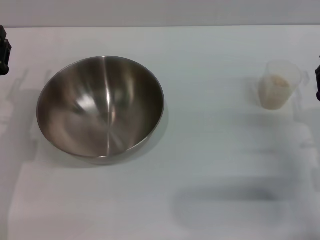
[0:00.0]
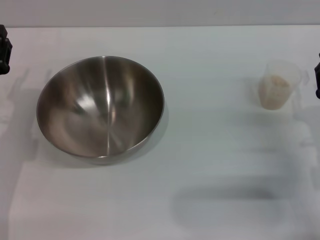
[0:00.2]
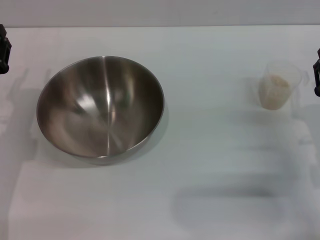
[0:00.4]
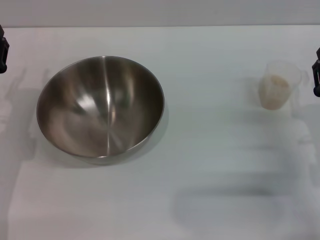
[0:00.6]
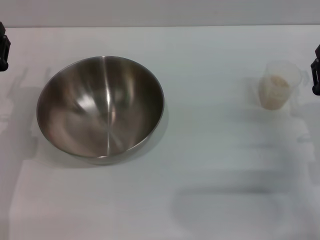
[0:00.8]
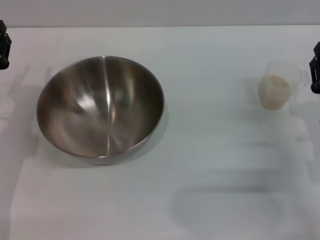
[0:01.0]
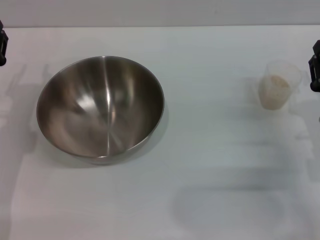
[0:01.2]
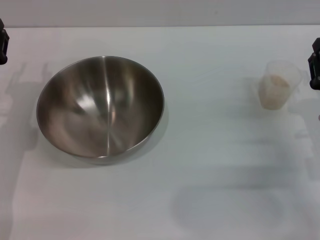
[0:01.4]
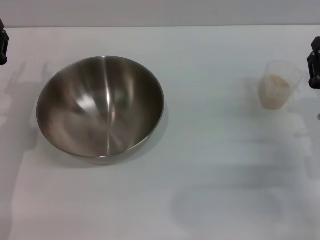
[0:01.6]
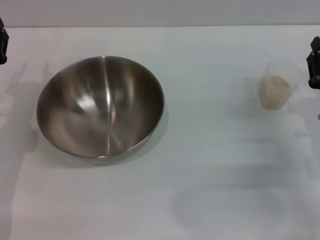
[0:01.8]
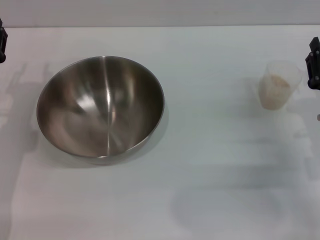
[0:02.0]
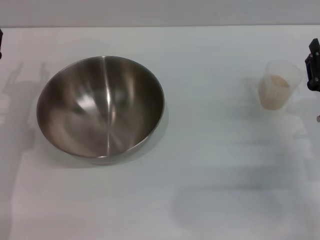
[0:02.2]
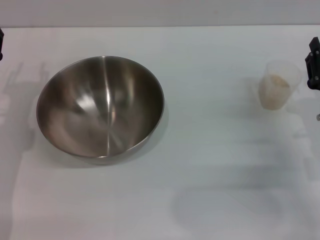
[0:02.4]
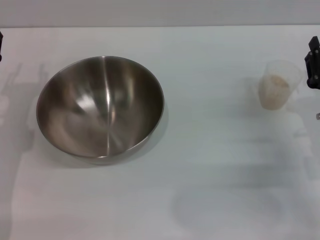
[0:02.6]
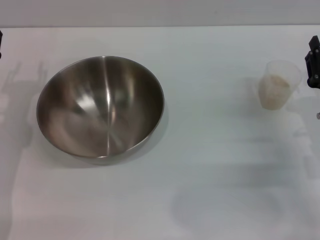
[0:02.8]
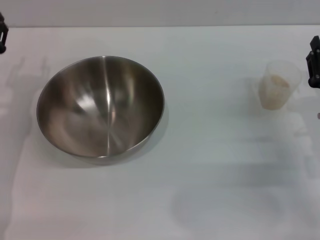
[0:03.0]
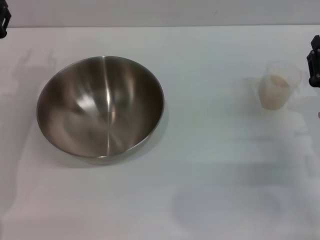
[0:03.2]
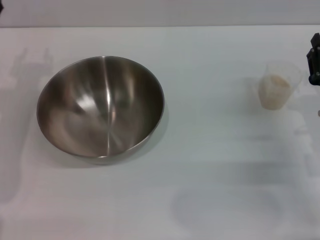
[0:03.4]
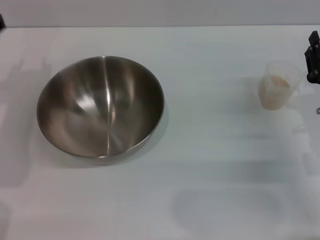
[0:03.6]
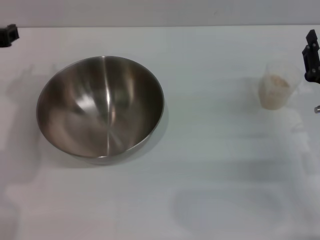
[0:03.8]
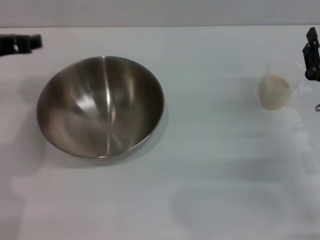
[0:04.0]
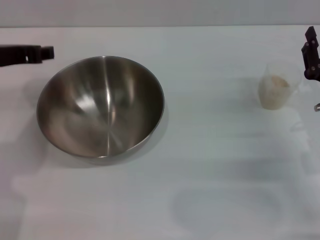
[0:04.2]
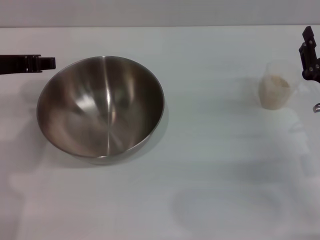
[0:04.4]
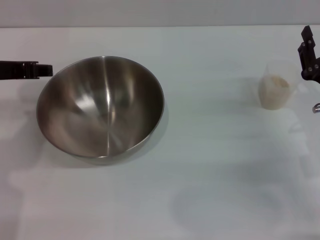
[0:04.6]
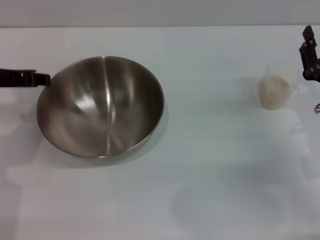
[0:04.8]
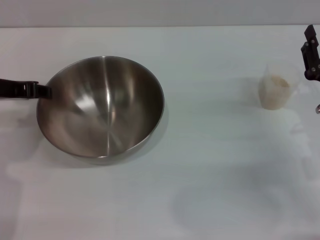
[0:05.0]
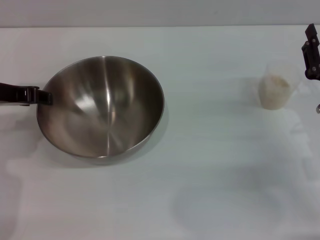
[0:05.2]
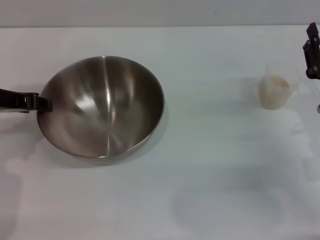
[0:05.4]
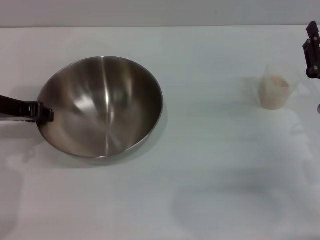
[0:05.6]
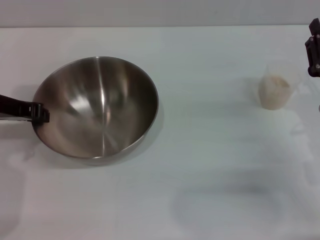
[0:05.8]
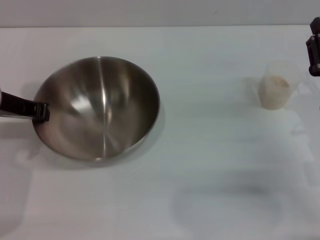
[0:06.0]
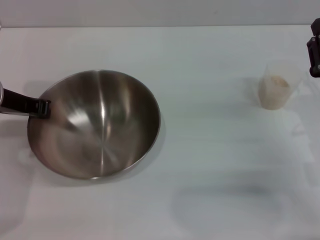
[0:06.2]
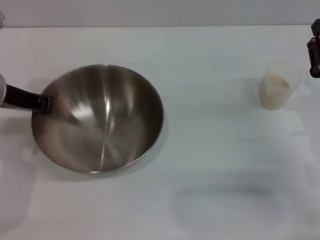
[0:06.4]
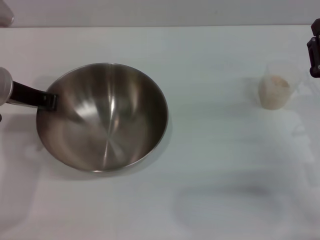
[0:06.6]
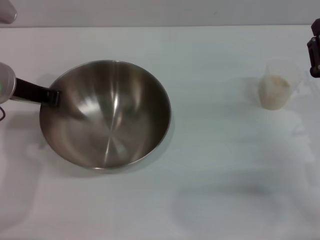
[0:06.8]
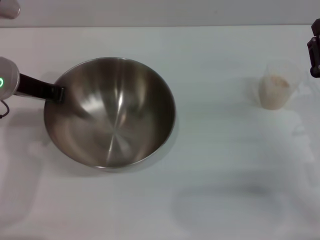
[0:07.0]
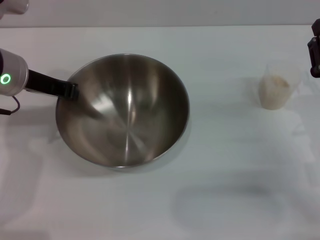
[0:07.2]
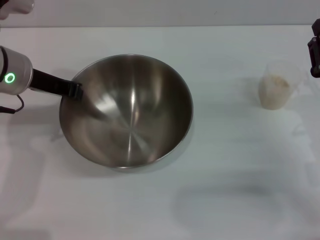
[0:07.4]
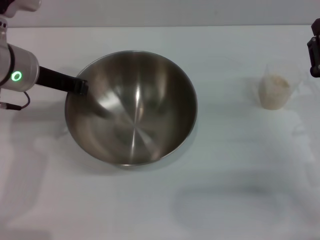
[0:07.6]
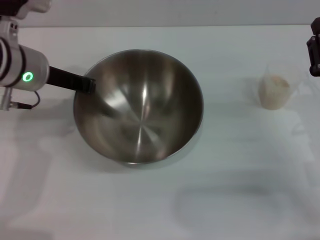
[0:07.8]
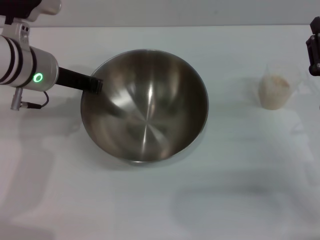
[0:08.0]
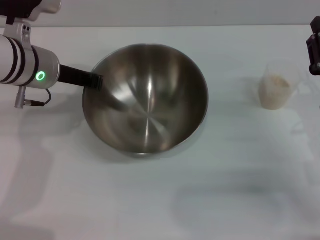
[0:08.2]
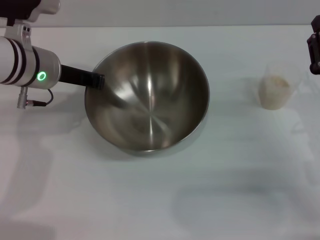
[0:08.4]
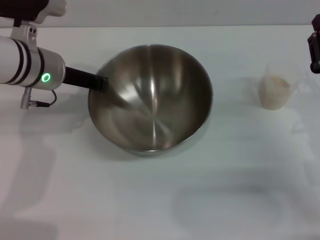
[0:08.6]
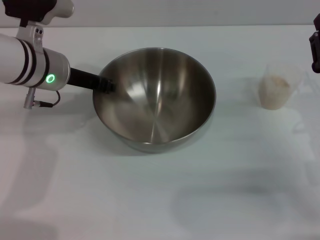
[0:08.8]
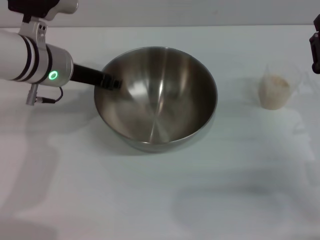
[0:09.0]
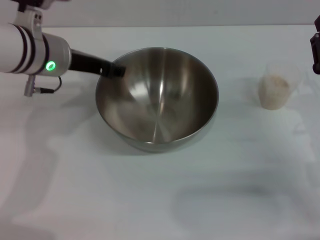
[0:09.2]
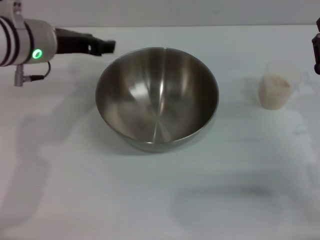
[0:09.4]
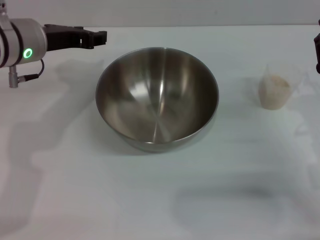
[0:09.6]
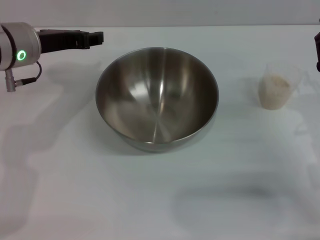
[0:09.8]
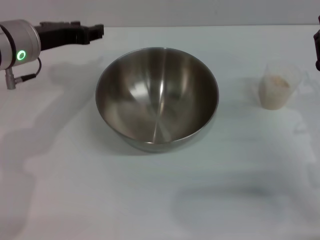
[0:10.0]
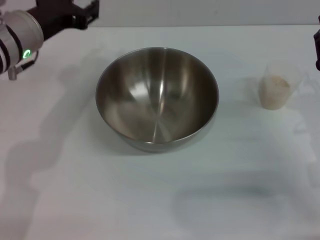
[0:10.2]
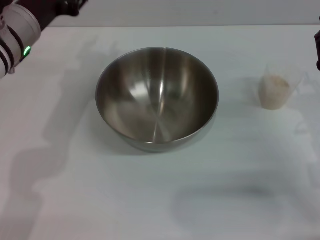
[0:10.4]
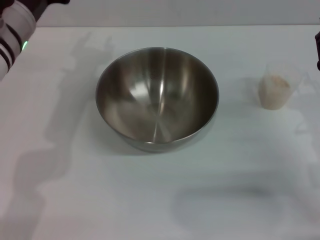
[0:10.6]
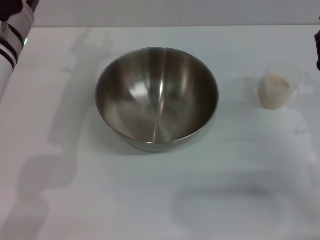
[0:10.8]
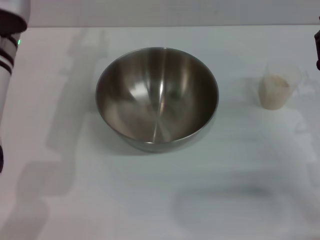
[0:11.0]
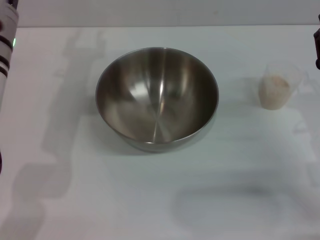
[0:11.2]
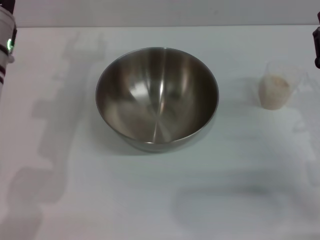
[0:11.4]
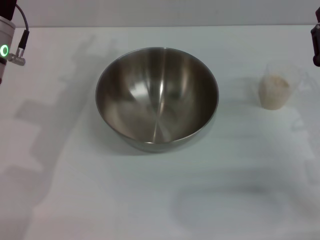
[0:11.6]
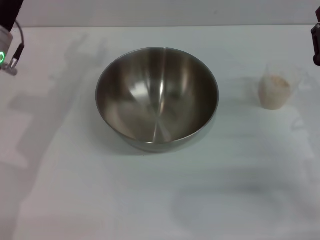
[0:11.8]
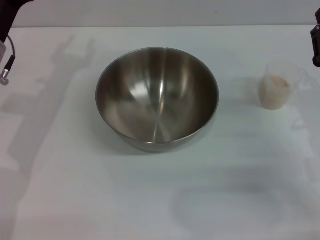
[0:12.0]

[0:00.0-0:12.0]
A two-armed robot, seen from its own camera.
Task of the whole recording: Place the bowl in the middle of the table with one hand and pour the rice from the grain cup into it with the other hand.
Step, 0:00.0 to 0:07.2: Pick up the bowl with the left gripper.
Step, 0:07.6 to 0:09.8: Place the bowl in the center of view with the left gripper.
0:00.0 to 0:01.6: The grippers move only a little.
0:03.0 to 0:04.4: The left gripper moves upward, approximately 15 cm.
0:04.4 to 0:06.0: The left gripper closes its fingers.
0:06.0 to 0:07.6: The left gripper ends up approximately 5 cm from where it was.
0:09.0 to 0:10.4: The left gripper opens up.
0:10.4 to 0:12.0: The left gripper heads to the left, covering roughly 5 cm.

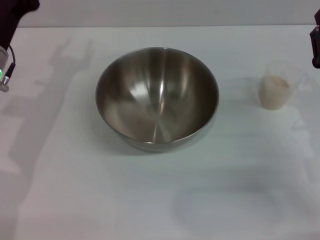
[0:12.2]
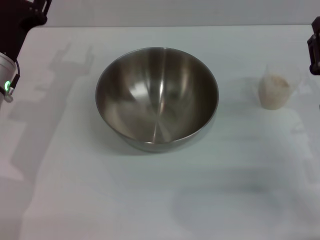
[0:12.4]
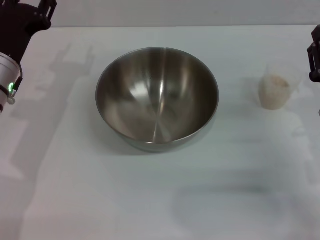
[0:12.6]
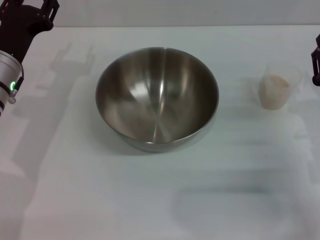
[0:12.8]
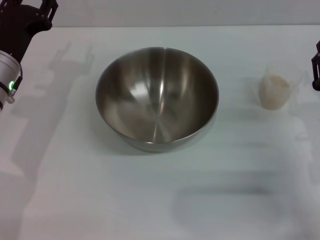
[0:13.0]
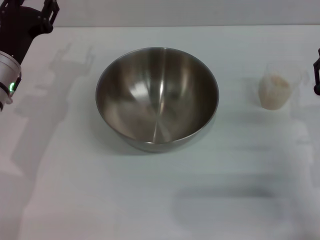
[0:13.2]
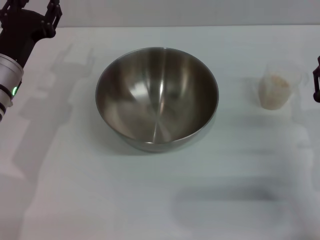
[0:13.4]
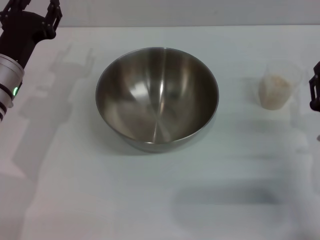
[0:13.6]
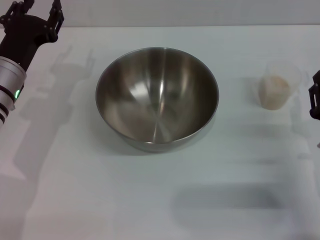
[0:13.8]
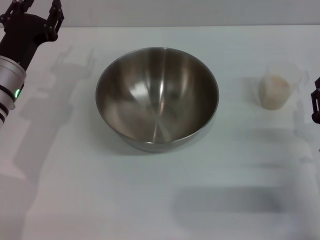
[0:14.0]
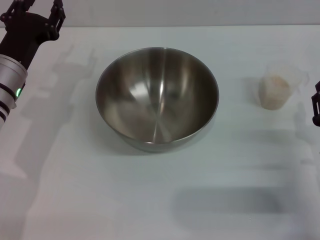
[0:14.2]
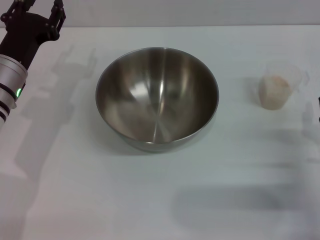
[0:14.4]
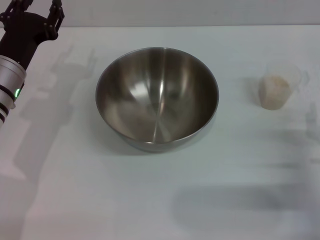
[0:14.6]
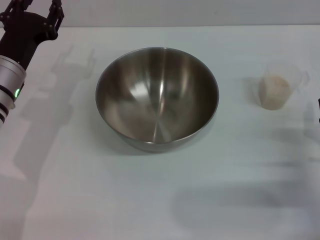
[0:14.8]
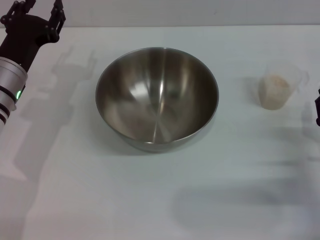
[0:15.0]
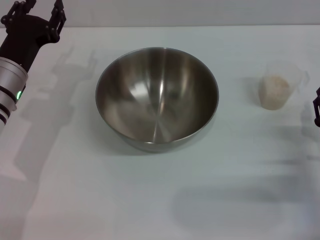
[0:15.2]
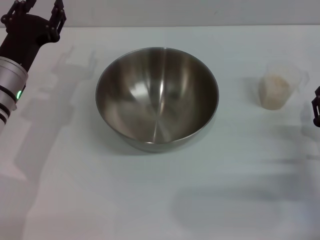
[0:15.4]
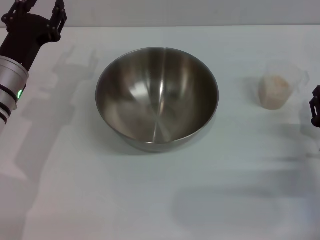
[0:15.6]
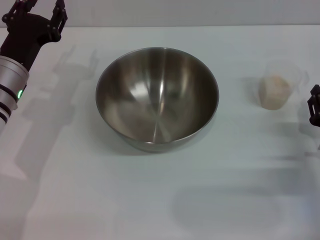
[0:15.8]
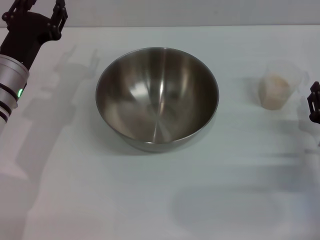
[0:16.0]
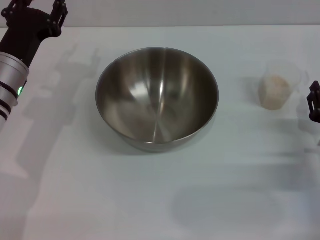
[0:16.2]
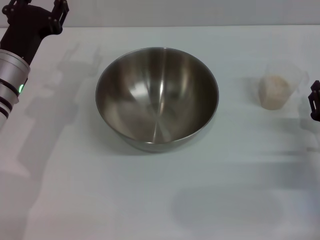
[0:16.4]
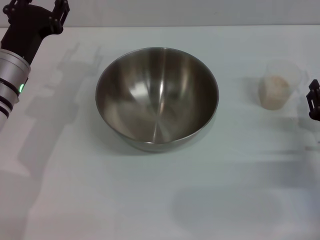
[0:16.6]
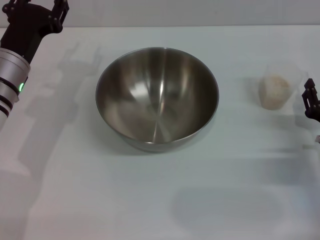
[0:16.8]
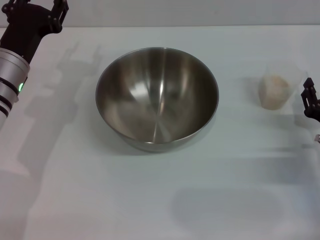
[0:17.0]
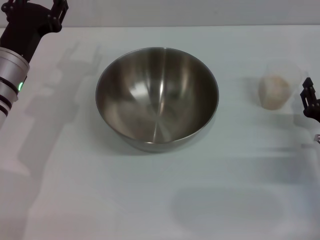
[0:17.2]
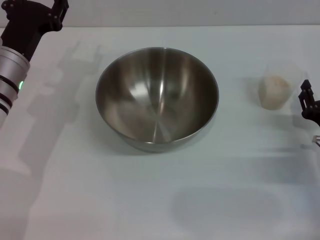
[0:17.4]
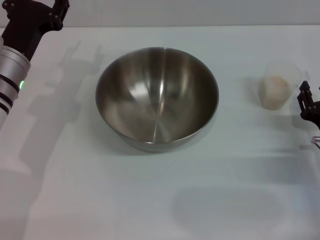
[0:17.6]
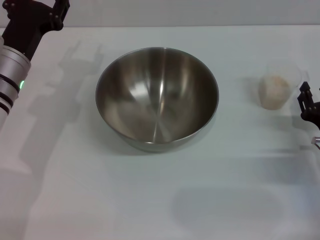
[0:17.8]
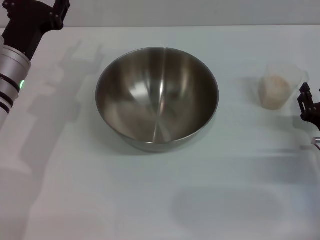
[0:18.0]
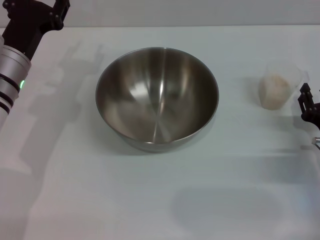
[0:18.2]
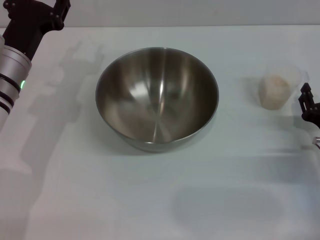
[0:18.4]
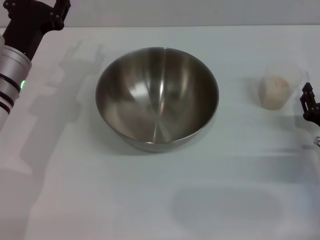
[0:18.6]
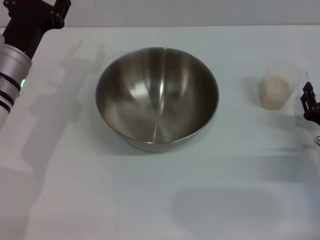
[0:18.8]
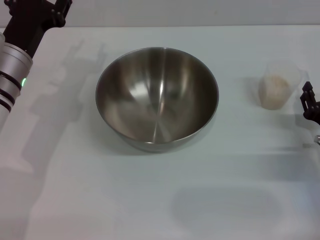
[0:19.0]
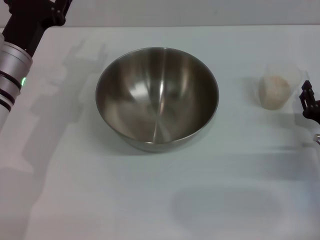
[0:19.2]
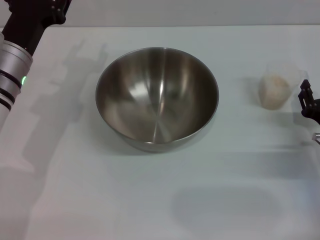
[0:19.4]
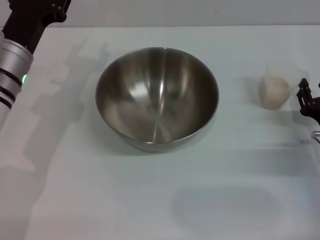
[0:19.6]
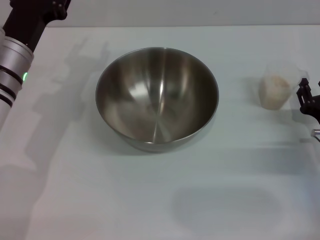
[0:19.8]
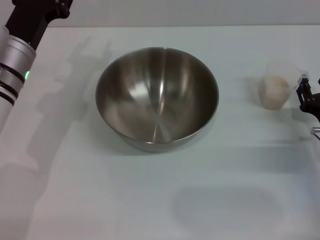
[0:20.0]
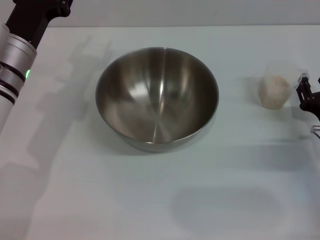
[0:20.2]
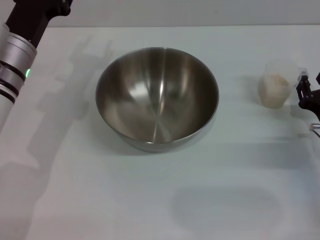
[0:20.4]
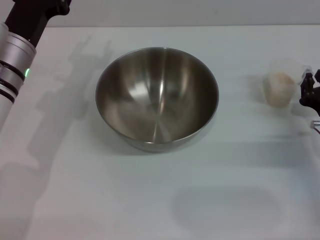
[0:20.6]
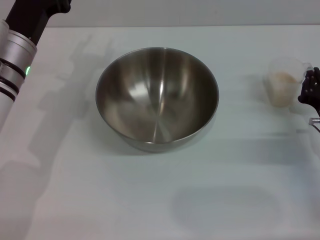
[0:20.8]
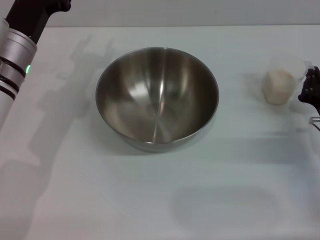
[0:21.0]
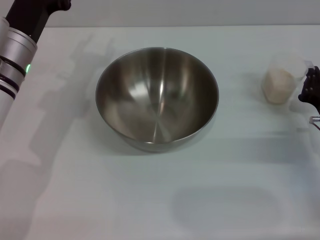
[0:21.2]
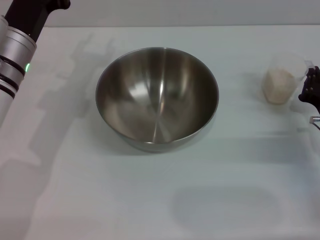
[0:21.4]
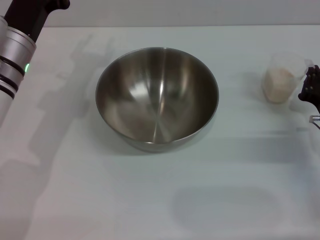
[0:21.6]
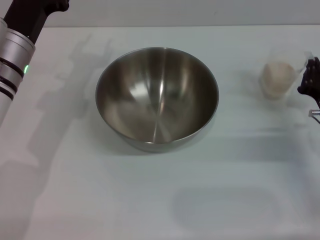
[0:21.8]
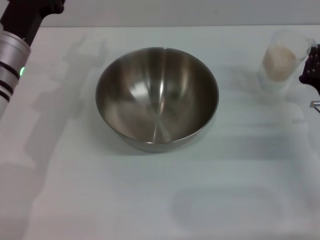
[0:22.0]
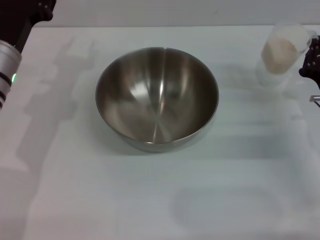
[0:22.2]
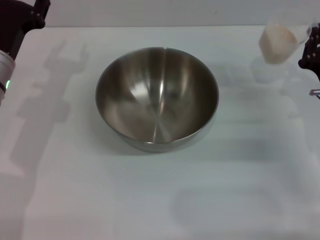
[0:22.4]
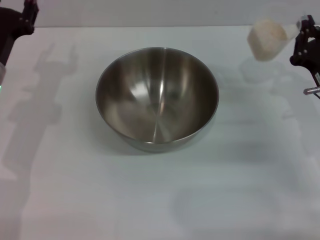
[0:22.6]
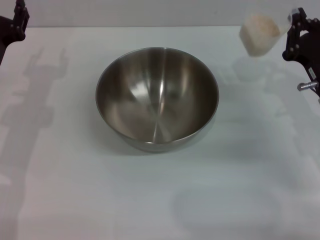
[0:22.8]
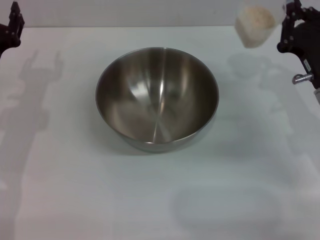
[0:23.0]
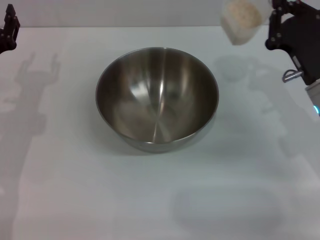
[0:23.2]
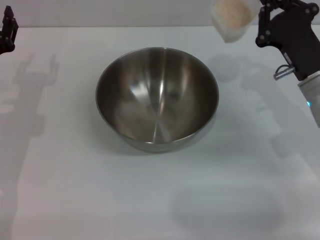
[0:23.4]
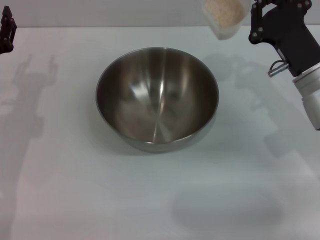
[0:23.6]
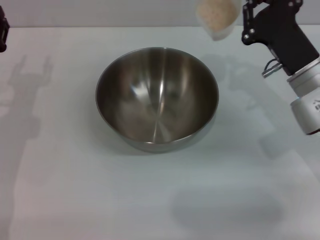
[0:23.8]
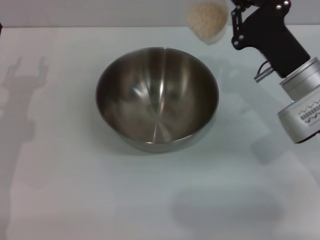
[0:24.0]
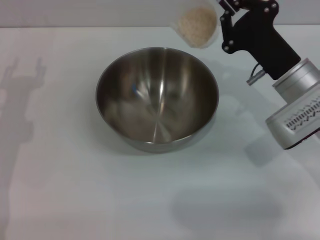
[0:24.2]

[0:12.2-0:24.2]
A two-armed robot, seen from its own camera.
Task of the whole recording: Place the bowl in the middle of the table with one hand and pour the rice from the grain cup into it with the other hand.
Step, 0:12.2 to 0:22.0: Pick up the cup with rice in it with the right gripper.
0:12.2 to 0:13.8: The right gripper goes approximately 5 cm backward.
0:13.8 to 0:16.6: There are only small adjustments of the grippers.
0:16.6 to 0:18.2: The two grippers keep their place.
0:18.2 to 0:19.8: The grippers move only a little.
0:19.8 to 0:21.2: The right gripper closes up.
0:21.2 to 0:22.6: The right gripper moves some 5 cm. Meanwhile the left gripper shifts by roughly 5 cm.
0:22.6 to 0:24.2: The left gripper moves about 5 cm, while the right gripper heads to the left, covering roughly 5 cm.
